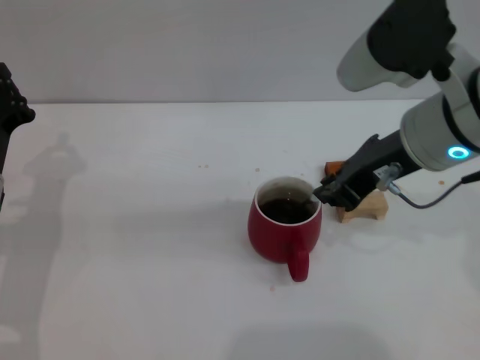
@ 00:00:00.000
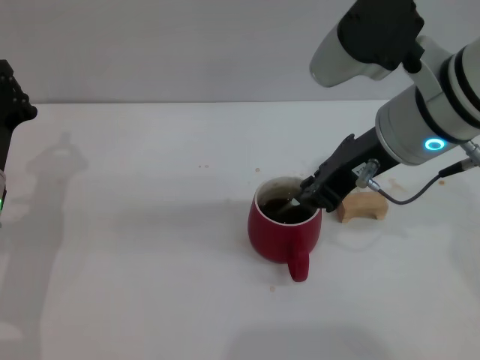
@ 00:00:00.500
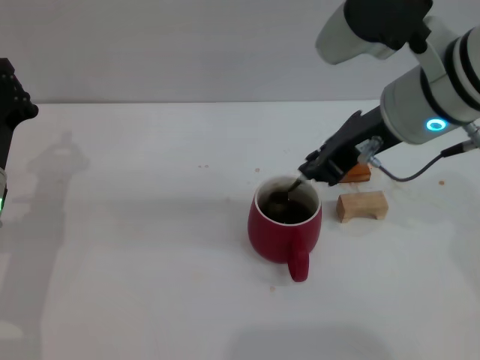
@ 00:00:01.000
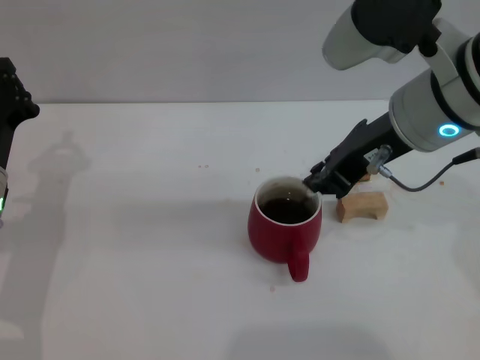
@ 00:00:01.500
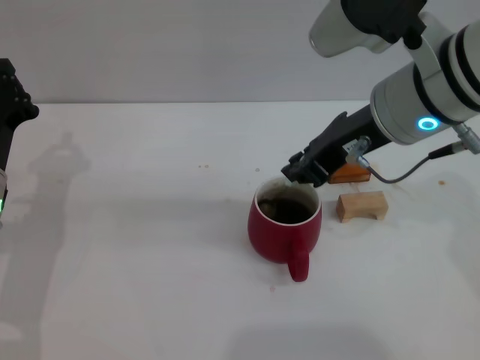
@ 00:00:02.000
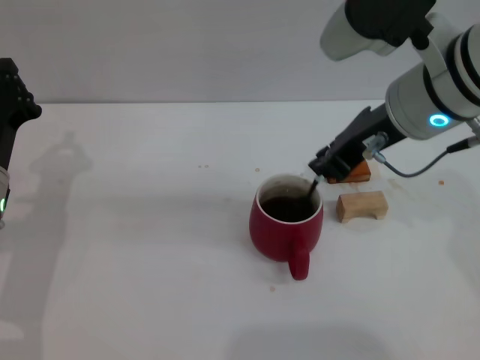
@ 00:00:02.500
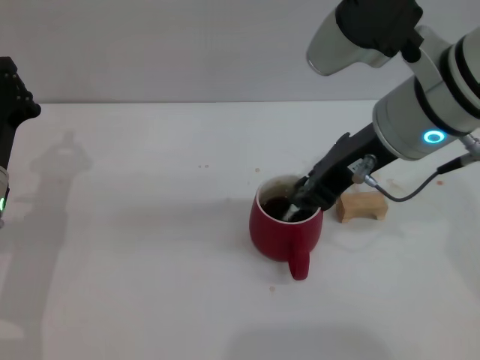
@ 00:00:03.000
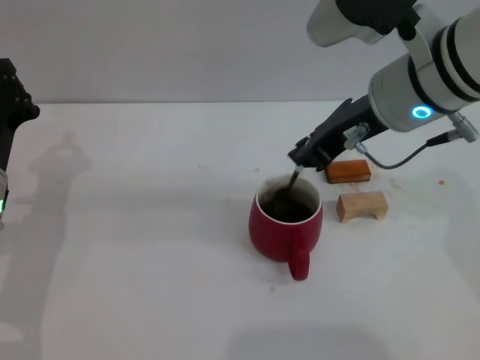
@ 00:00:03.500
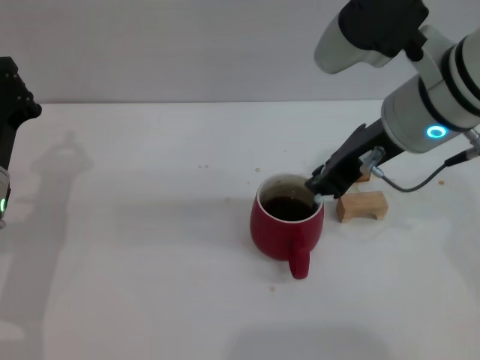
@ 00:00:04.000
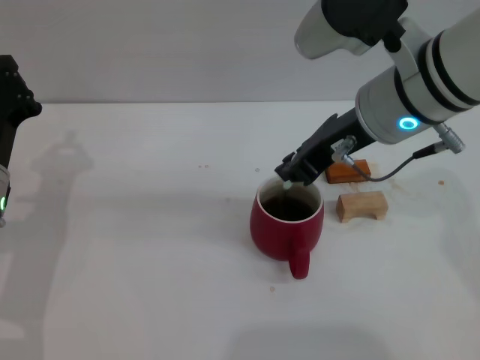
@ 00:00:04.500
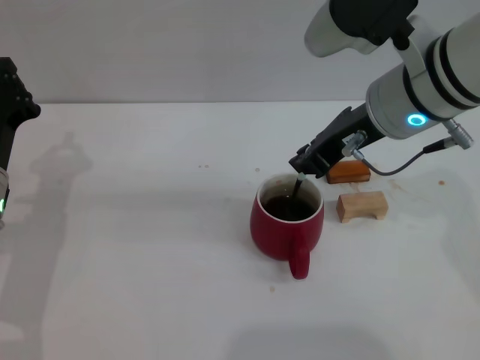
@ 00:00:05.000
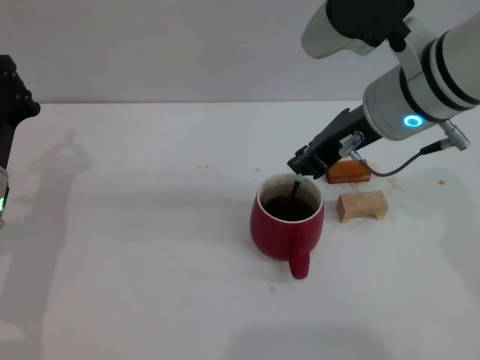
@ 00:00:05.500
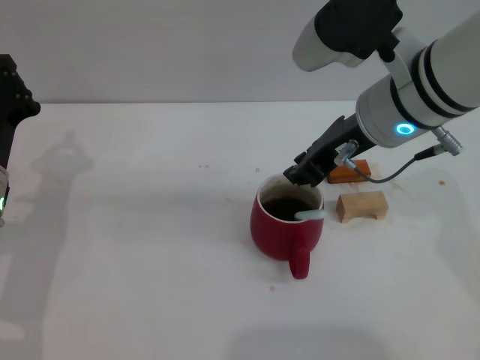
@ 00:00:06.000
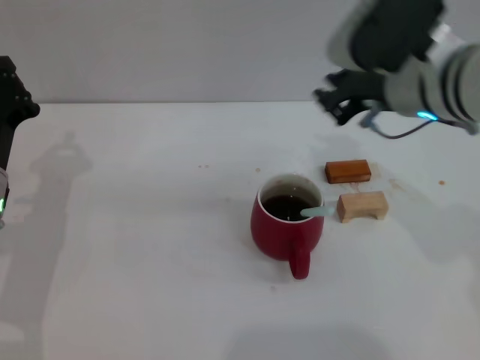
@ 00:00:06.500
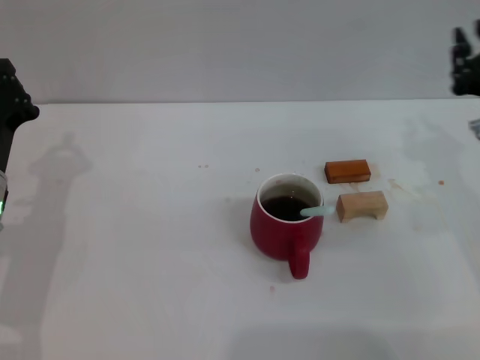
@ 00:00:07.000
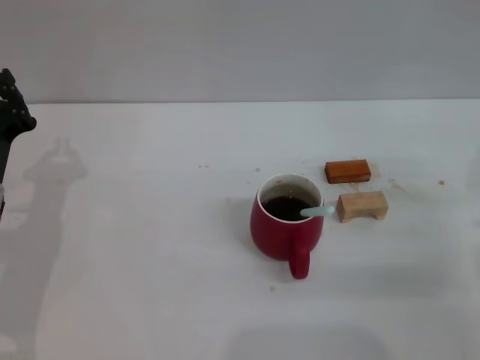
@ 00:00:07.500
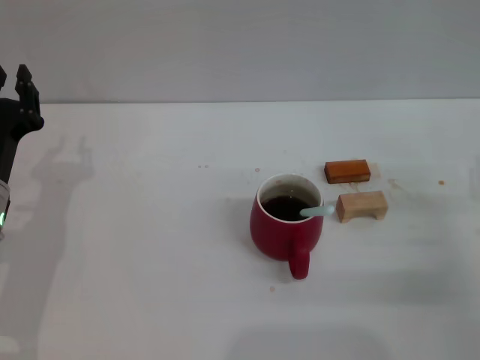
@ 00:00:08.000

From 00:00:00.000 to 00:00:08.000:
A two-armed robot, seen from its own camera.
Task of the whole recording: Move the red cup to the center, lift the blue spoon, stir it three times in the cup, and put the spoon into the cup.
Step, from 00:00:00.000 to 00:00:06.000: Stir the coffee with right gripper.
From 00:00:00.000 to 00:00:06.000: The grippers make only small movements.
From 00:00:06.000 to 00:00:08.000: The right gripper travels to the right, downward and backward by roughly 25 cm.
